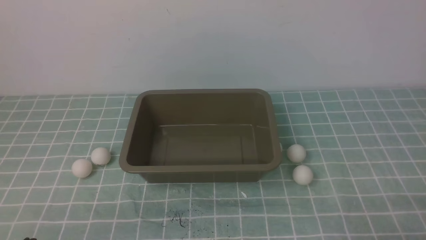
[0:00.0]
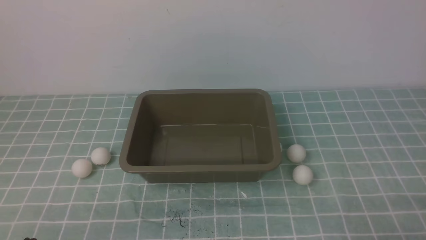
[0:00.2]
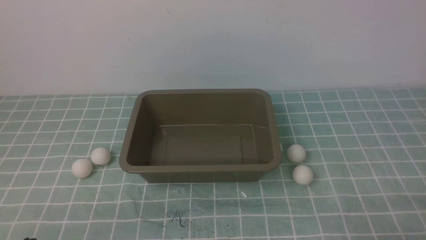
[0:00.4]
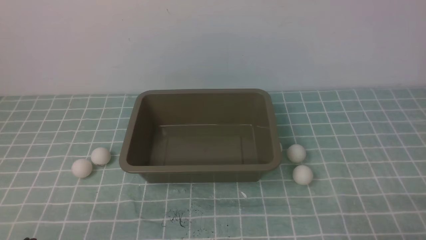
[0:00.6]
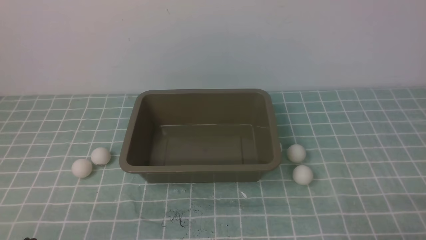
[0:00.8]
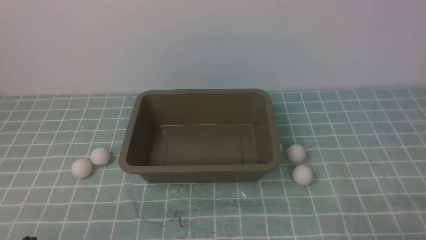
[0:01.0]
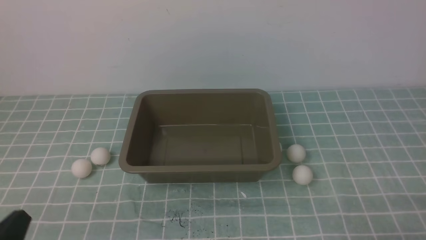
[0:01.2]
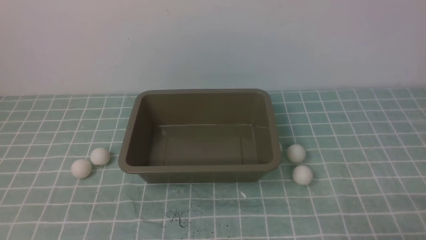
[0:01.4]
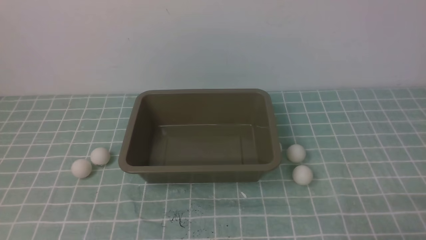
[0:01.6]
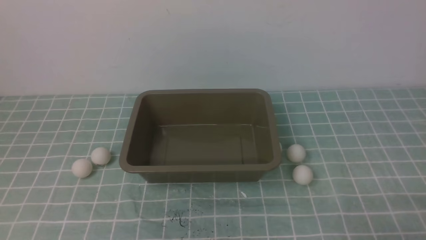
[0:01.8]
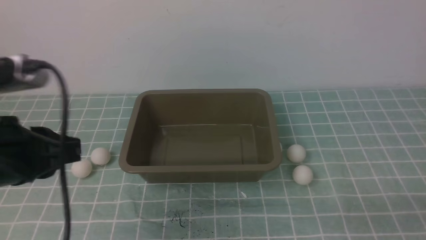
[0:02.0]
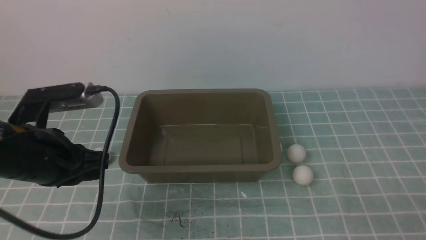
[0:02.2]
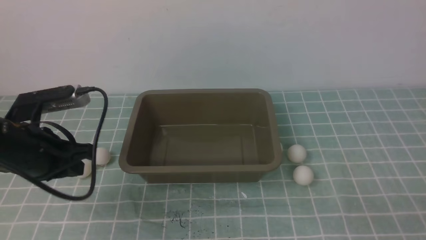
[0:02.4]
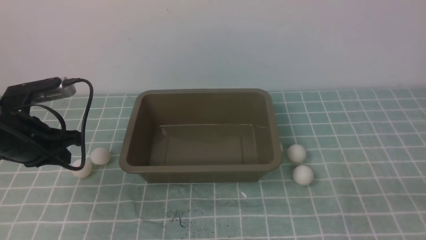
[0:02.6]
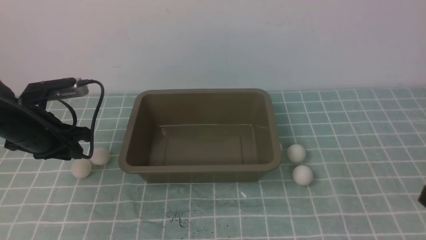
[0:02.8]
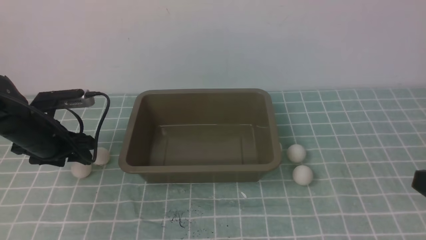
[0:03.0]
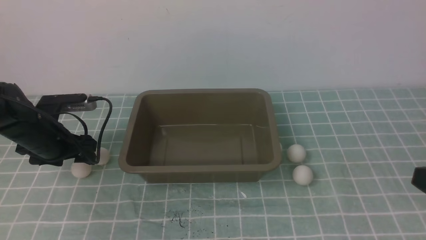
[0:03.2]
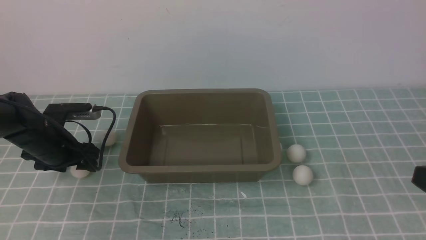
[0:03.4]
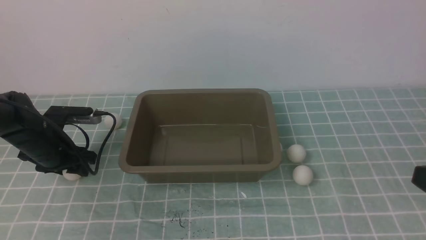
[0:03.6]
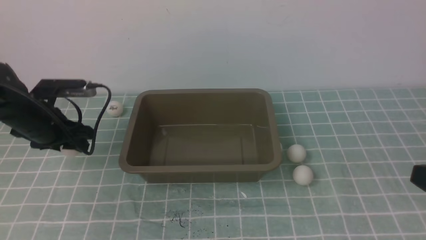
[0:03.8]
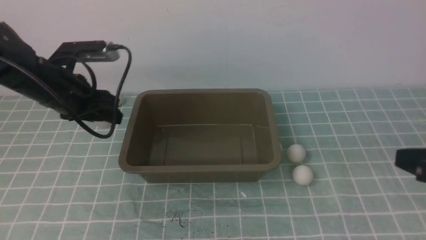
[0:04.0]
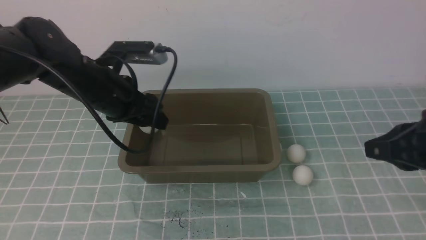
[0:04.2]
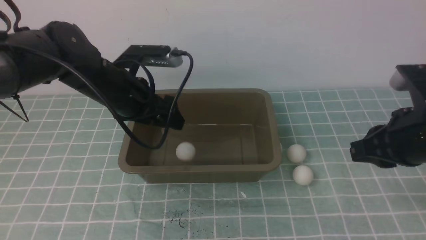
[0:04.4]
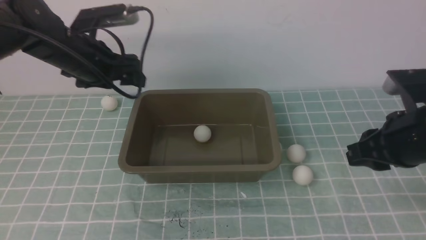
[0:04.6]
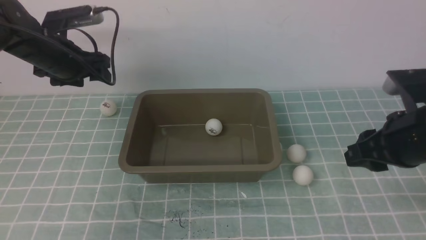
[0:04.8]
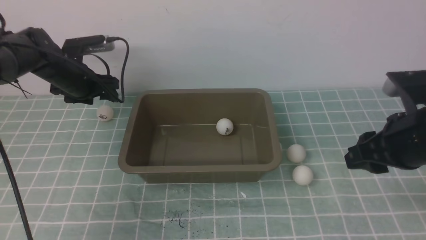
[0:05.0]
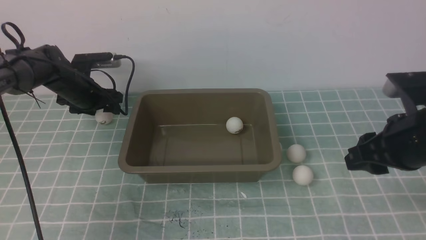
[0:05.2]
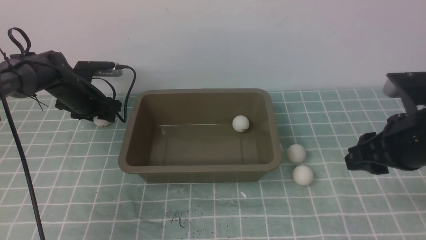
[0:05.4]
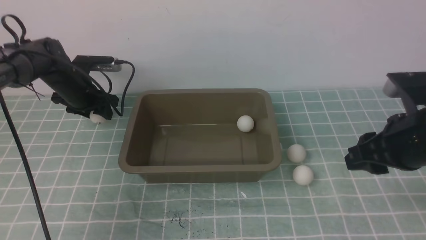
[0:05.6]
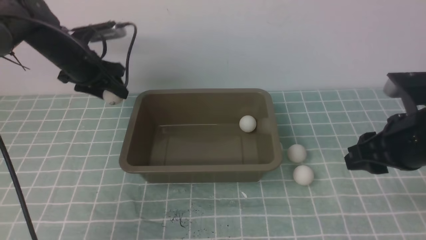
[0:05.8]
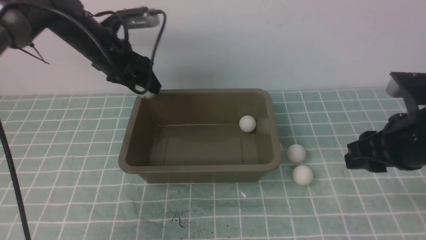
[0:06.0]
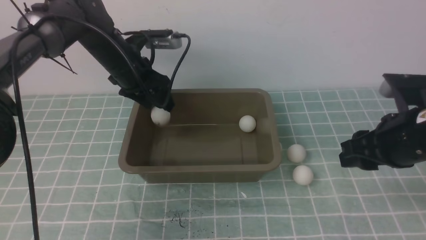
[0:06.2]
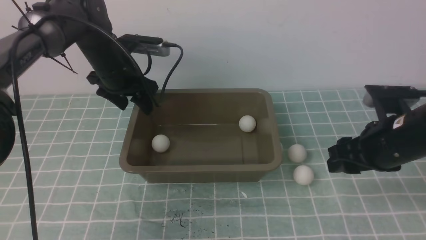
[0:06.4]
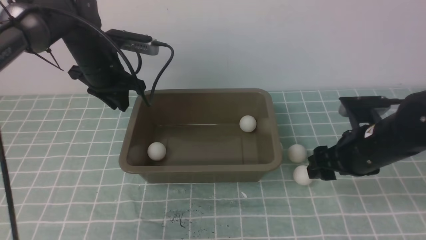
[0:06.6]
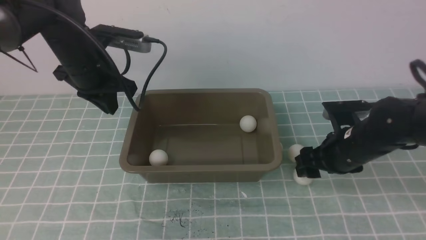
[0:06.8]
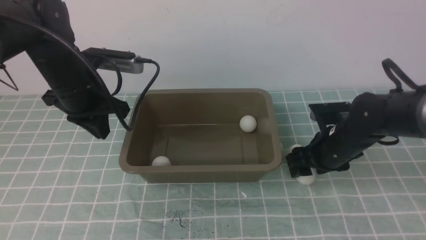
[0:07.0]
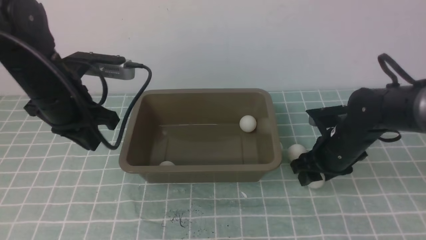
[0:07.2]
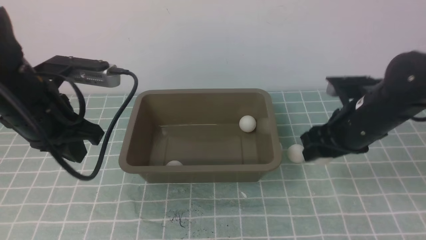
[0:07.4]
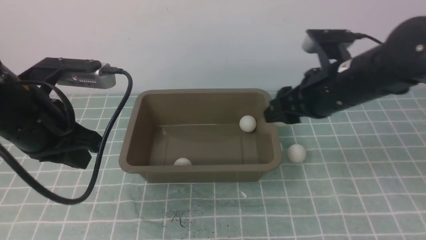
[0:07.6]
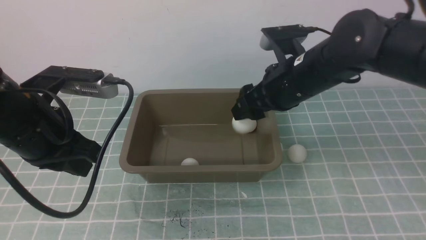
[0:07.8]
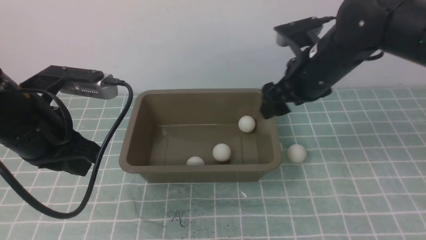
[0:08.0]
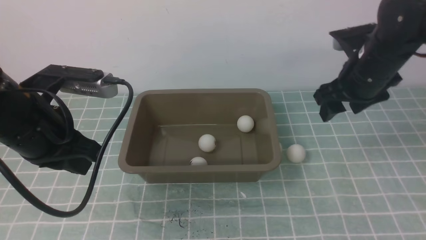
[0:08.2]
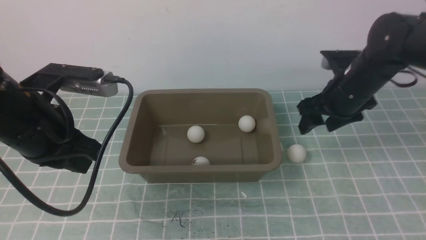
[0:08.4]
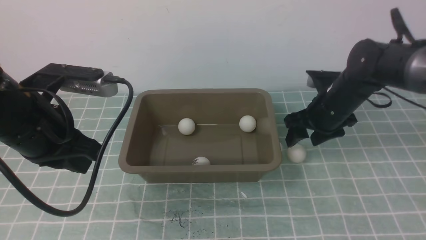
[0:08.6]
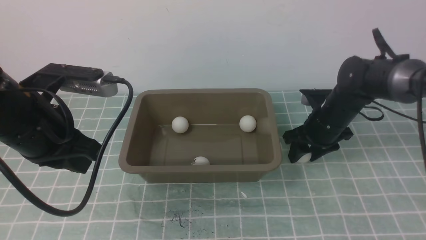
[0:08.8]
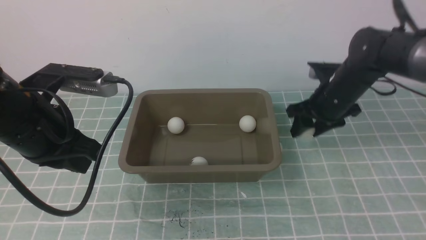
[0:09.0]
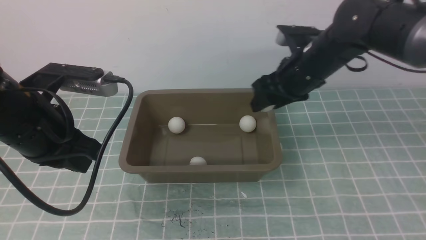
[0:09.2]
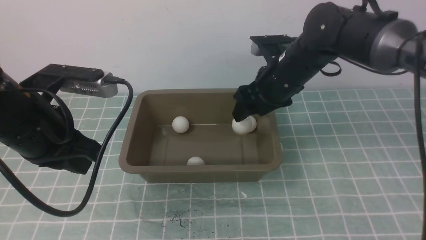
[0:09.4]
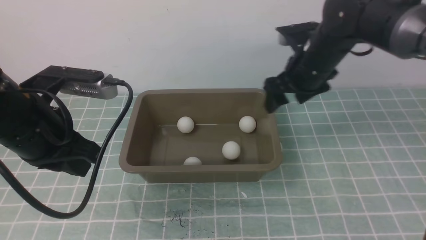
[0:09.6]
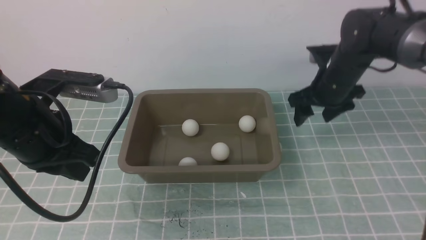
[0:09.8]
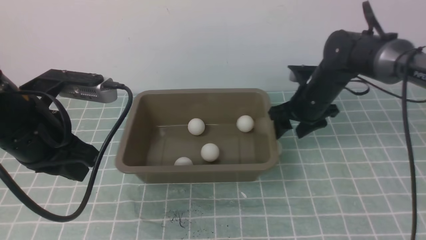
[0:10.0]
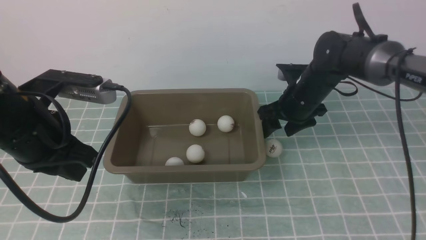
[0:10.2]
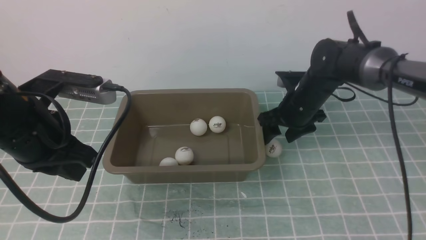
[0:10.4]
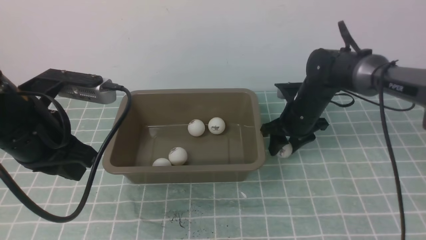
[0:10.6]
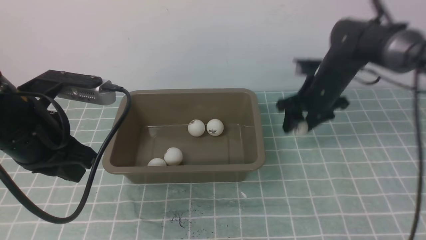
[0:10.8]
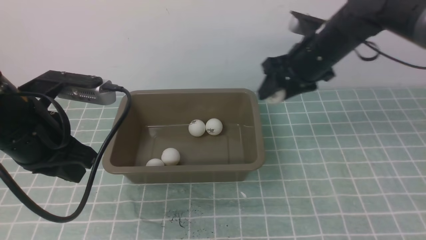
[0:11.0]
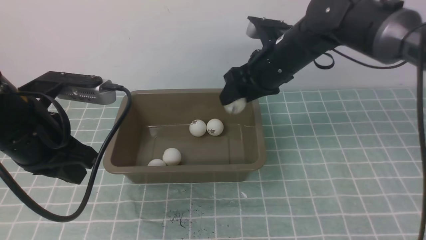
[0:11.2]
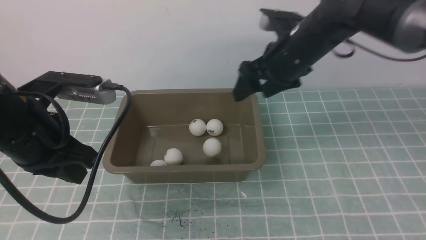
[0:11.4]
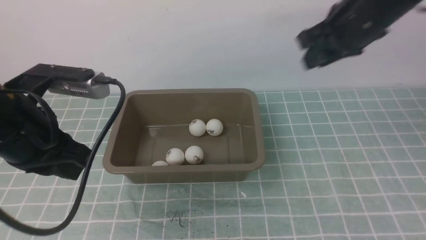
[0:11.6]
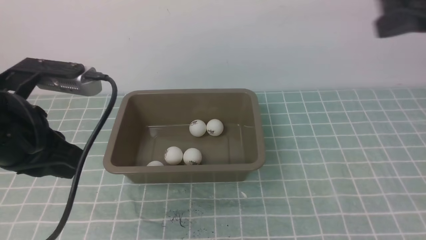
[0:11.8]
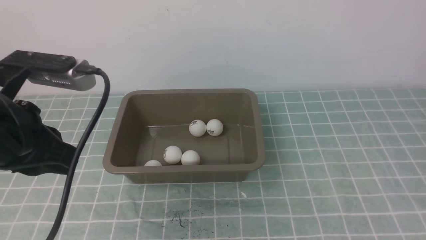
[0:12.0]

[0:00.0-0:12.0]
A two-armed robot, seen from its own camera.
Step, 0:00.0 to 0:03.6: use the left arm to clamp the table tennis ball closest to it.
Step, 0:03.8 to 0:04.6: use the left arm to put the table tennis ball into the box.
Step, 0:04.8 to 0:05.8: use the left arm to clamp the table tennis ball closest to it.
Step, 0:06.0 to 0:06.4: use the left arm to put the table tennis ball into the box.
Step, 0:06.8 to 0:07.2: use the right arm to clamp the table tennis ball closest to it.
Step, 0:07.4 to 0:08.2: use the right arm to put the table tennis ball into the box.
Step, 0:08.4 to 0:08.8: use the right arm to clamp the table tennis ball closest to it.
Step, 0:09.0 to 0:09.6: use the right arm to put the table tennis ball into the box.
Step, 0:09.8 to 0:10.6: use the right arm to clamp the table tennis ball closest to it.
Step, 0:11.0 to 0:11.4: use the right arm to put the table tennis ball into the box.
0:01.6 to 0:03.0: The right gripper heads upward, covering roughly 10 cm. Meanwhile the left gripper moves forward, roughly 30 cm, and opens its fingers.
0:03.0 to 0:04.4: The left gripper shifts roughly 15 cm to the right and upward. Meanwhile the right gripper goes approximately 15 cm forward.
0:04.4 to 0:06.0: The right gripper opens, while the left gripper travels forward by some 10 cm, and goes downward and returns, approximately 10 cm each way.
0:06.0 to 0:07.6: The left gripper shifts some 20 cm backward, and closes its fingers. The right gripper travels to the left and forward by roughly 10 cm, and travels downward and back again, some 10 cm each way.
0:07.6 to 0:09.0: The right gripper heads forward and downward, covering about 10 cm.
0:09.0 to 0:10.4: The right gripper ends up some 5 cm from where it was.
0:10.4 to 0:12.0: The left gripper ends up about 5 cm from where it was, while the right gripper travels backward and upward by some 40 cm, and closes.

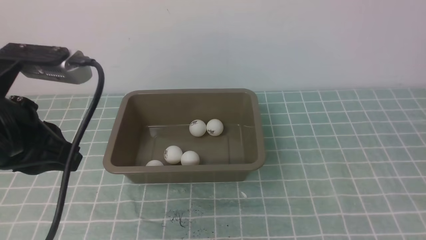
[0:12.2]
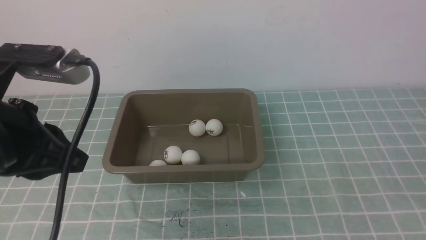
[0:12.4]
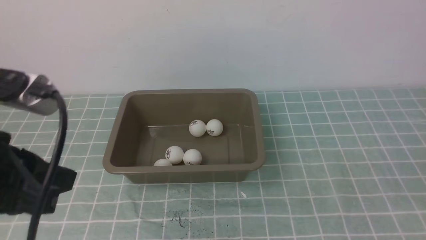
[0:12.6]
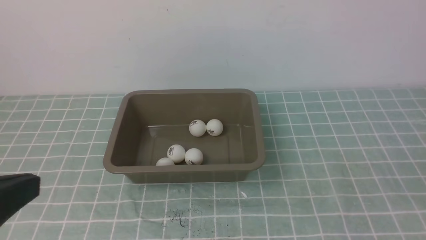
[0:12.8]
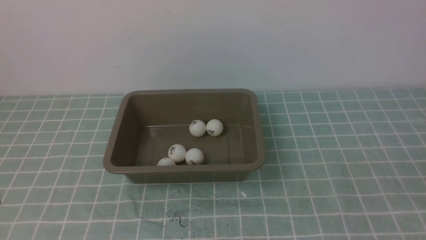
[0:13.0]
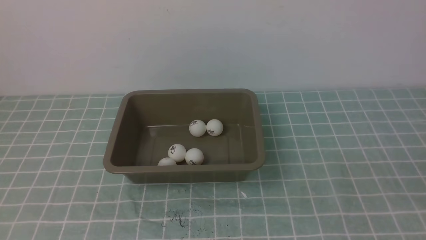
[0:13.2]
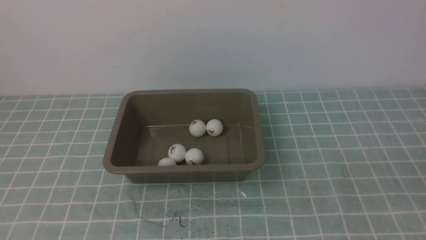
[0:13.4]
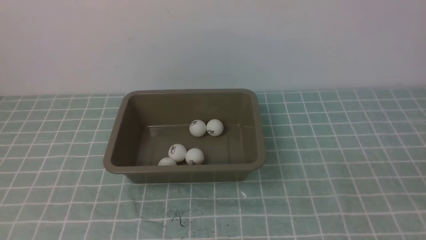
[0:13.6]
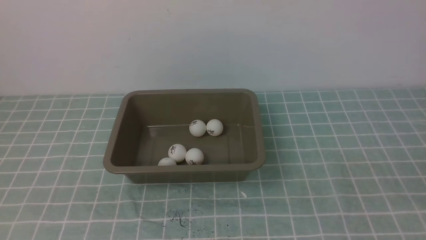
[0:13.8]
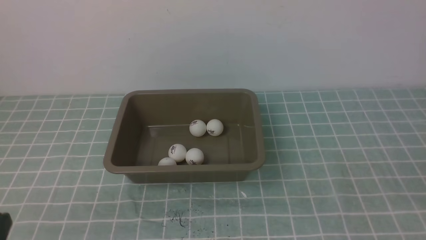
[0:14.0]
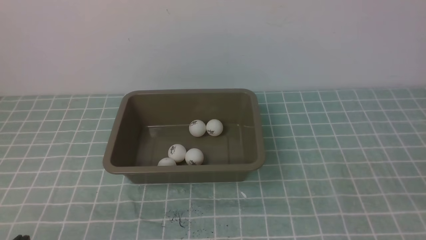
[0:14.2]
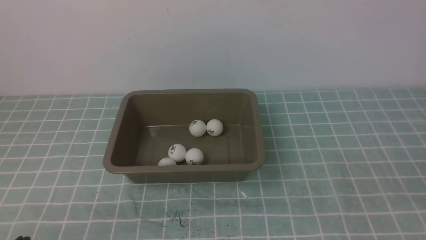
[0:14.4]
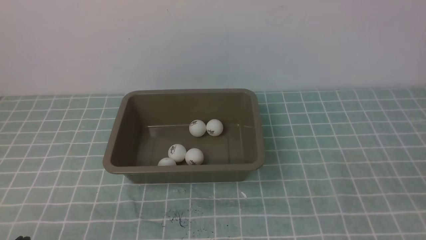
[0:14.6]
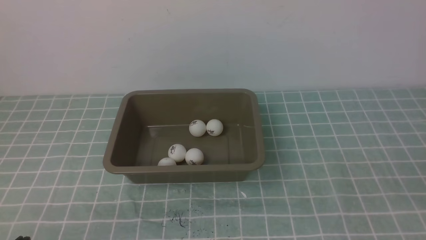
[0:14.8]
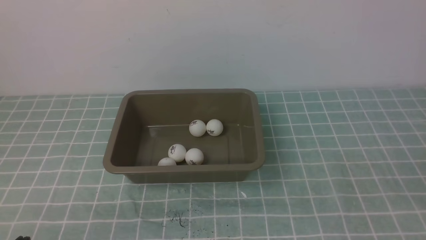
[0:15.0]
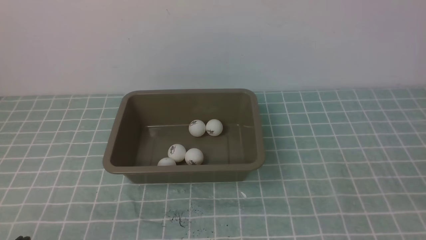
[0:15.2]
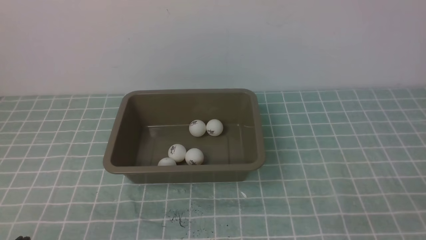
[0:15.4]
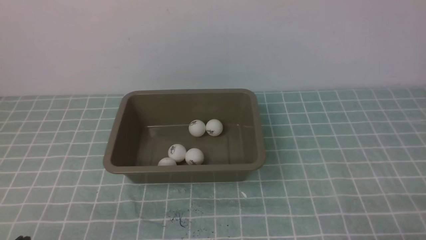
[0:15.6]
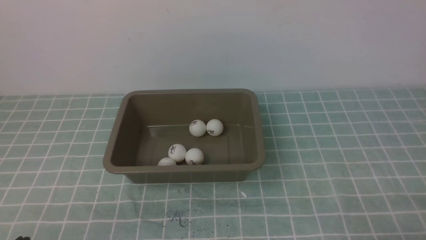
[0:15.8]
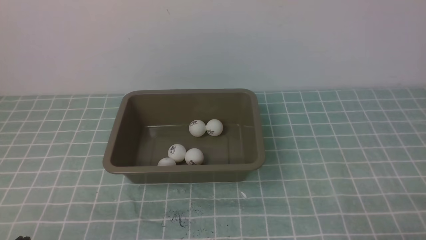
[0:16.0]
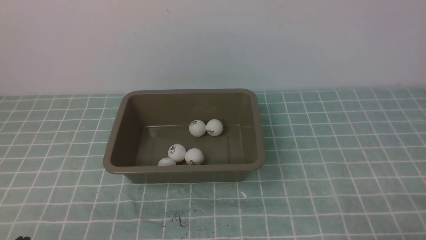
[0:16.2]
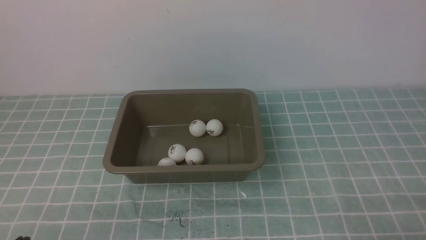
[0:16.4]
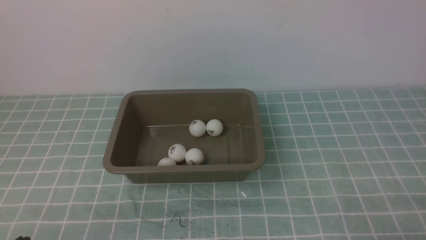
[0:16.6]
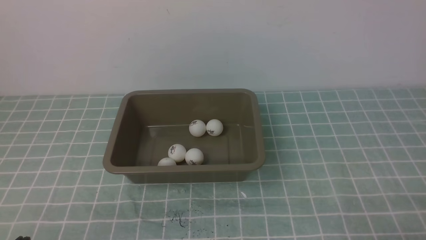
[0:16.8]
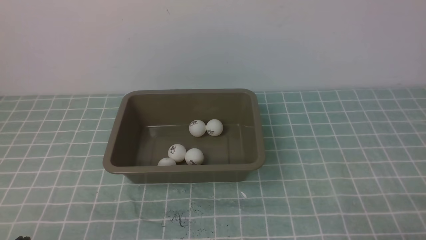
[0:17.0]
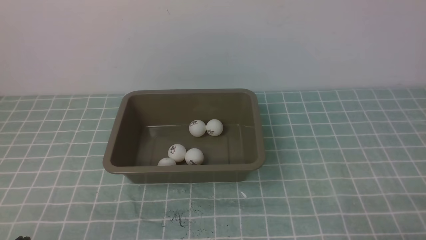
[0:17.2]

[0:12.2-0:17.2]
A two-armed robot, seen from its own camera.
0:12.2 to 0:13.8: The right gripper moves downward, roughly 10 cm, while the left gripper travels backward and downward by approximately 20 cm.
0:15.6 to 0:17.2: Both grippers stay put.
